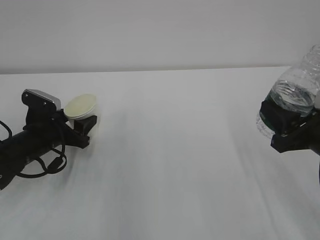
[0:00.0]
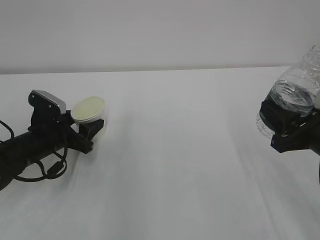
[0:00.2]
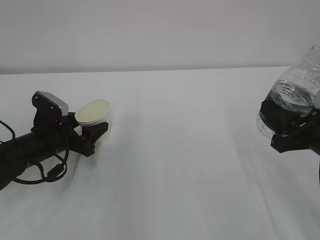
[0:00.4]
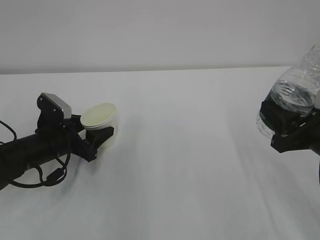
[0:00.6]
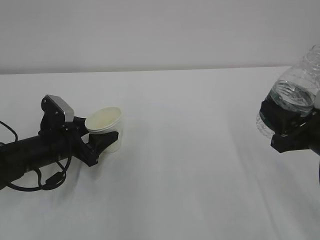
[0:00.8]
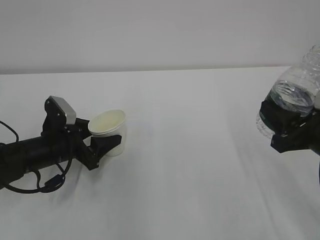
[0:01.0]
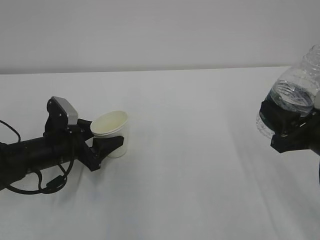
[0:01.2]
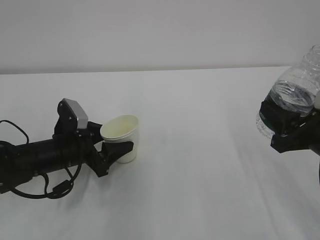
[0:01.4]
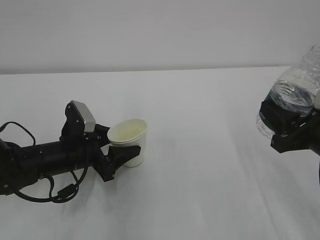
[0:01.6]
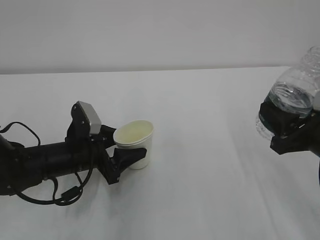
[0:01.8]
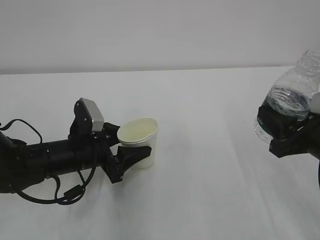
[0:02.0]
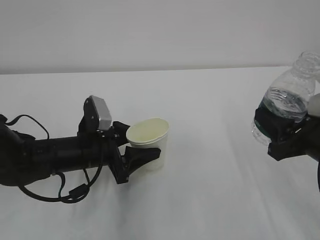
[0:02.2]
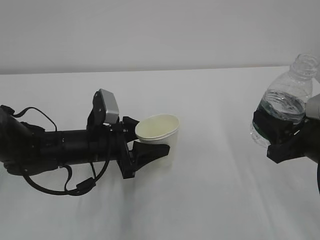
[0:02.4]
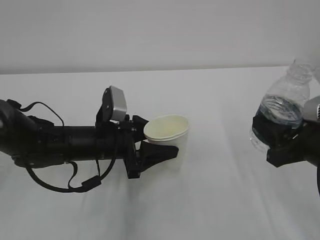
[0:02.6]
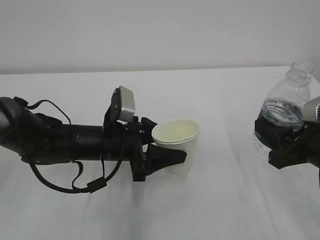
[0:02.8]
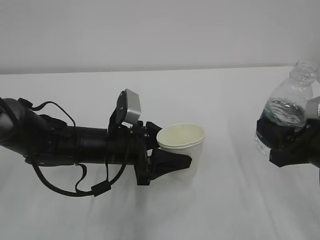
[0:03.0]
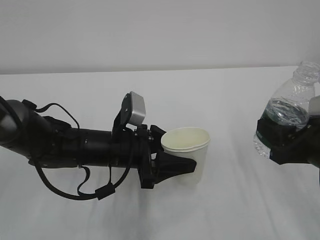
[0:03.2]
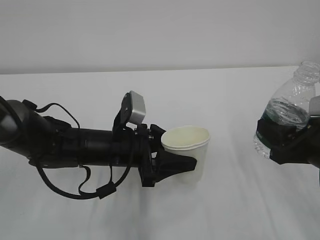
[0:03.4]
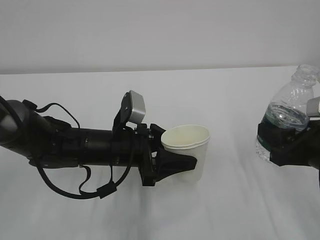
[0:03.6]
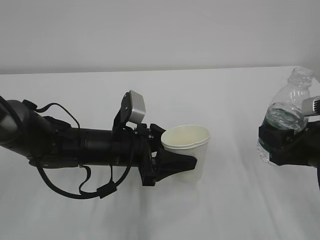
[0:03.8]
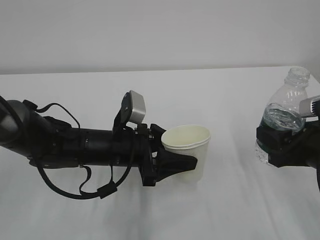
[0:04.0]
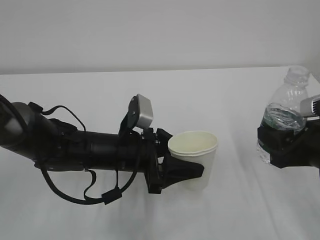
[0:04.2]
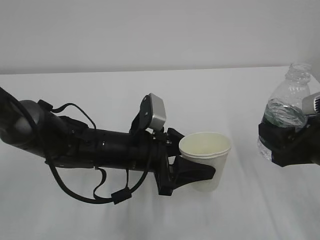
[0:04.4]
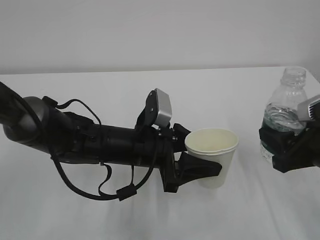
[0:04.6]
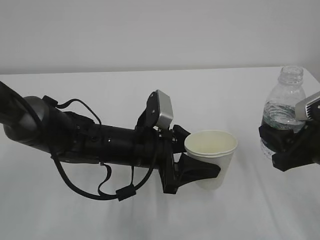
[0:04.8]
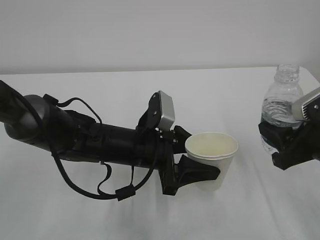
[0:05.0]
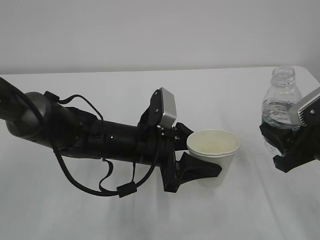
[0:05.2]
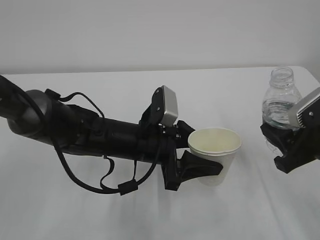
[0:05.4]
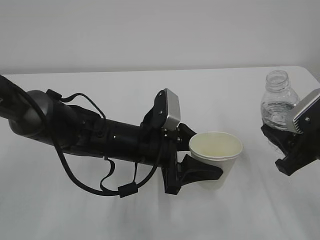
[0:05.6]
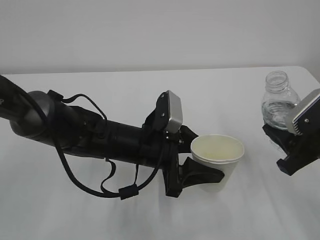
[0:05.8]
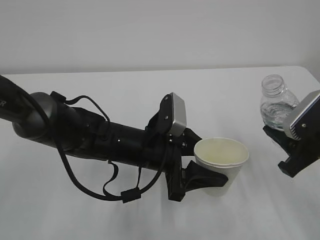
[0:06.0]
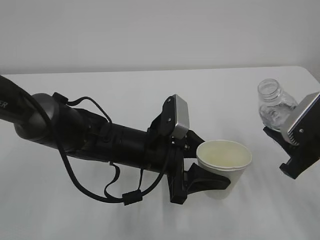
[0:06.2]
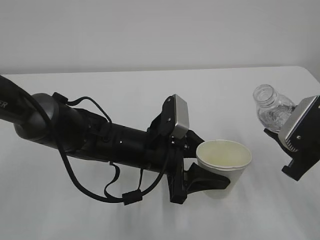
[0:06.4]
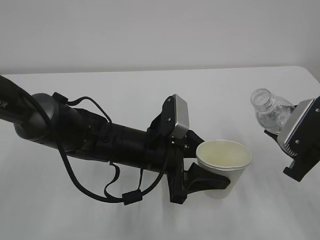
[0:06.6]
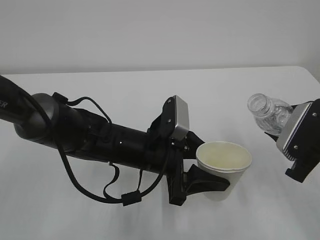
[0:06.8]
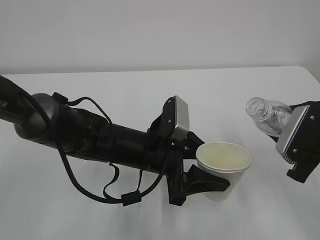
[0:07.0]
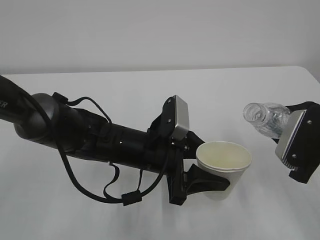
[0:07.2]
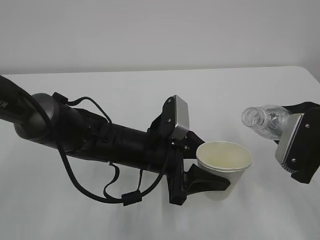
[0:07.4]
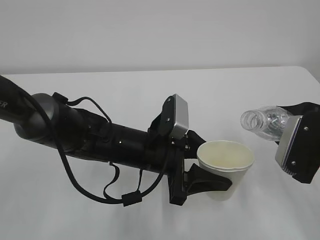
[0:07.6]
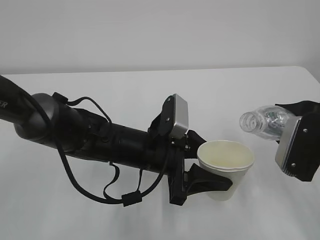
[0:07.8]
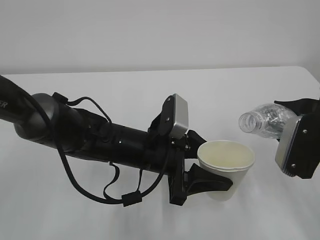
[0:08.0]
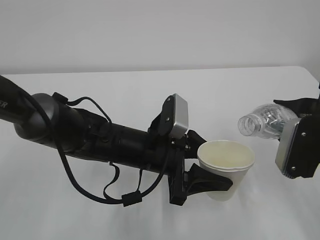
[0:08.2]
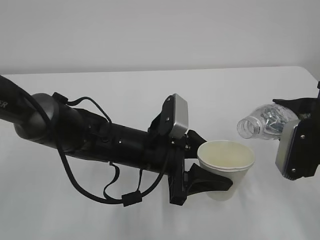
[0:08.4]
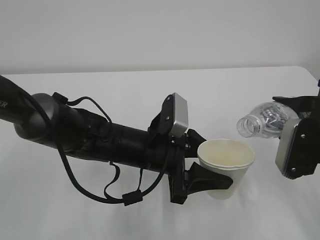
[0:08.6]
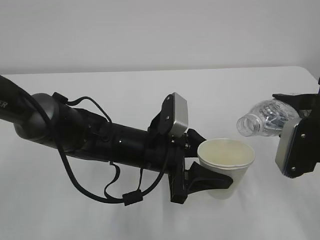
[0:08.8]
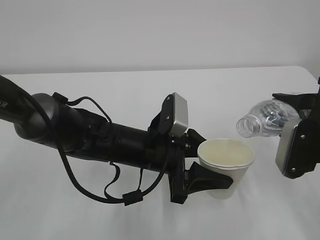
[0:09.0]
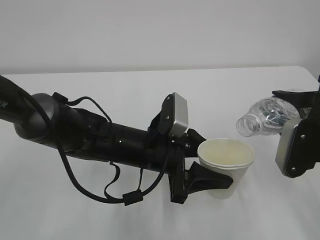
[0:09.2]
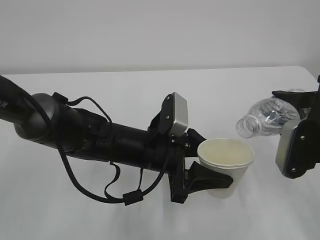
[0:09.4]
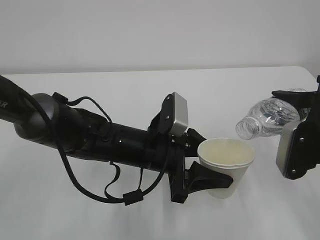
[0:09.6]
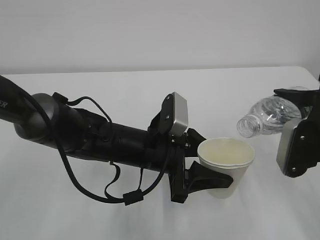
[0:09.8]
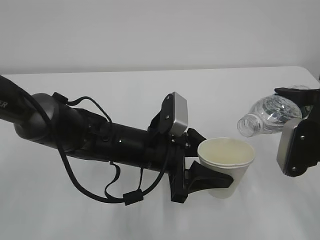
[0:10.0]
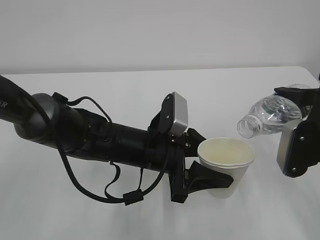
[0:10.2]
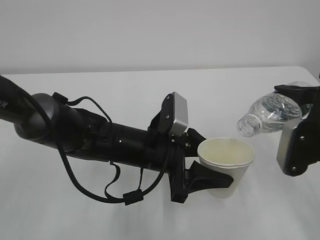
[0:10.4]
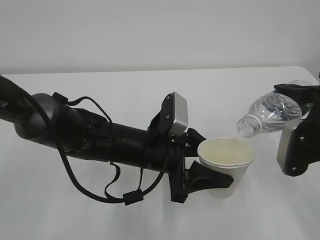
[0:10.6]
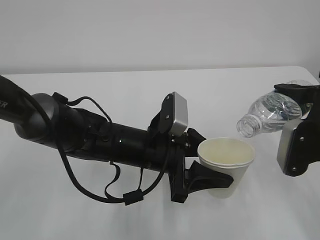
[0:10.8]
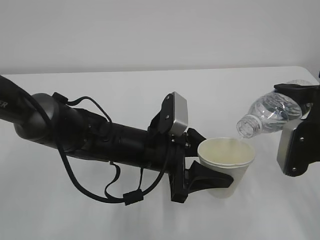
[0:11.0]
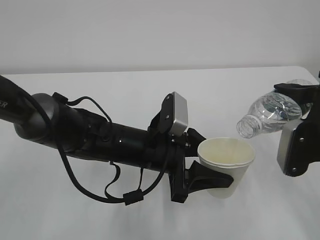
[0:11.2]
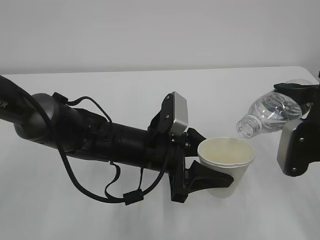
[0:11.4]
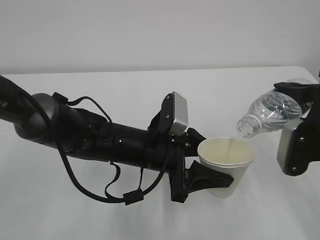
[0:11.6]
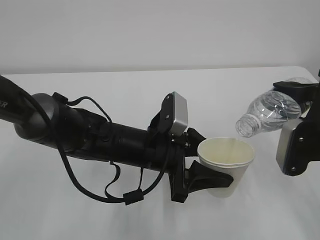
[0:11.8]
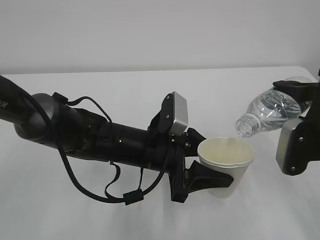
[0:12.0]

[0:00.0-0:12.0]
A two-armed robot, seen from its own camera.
0:00.0 to 0:01.6: The left gripper shifts roughly 5 cm to the right.
0:01.6 to 0:03.0: The left gripper goes roughly 10 cm to the right.
0:03.0 to 0:04.4: The grippers move only a little.
0:07.6 to 0:09.0: The grippers stay close to where they were, moving slightly.
0:09.0 to 0:10.4: The grippers move only a little.
0:10.4 to 0:12.0: Both grippers stay put.

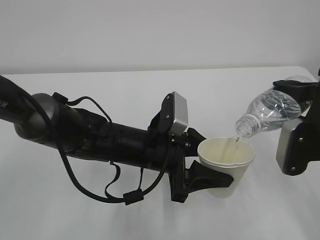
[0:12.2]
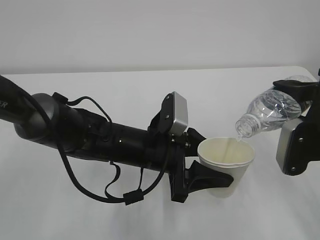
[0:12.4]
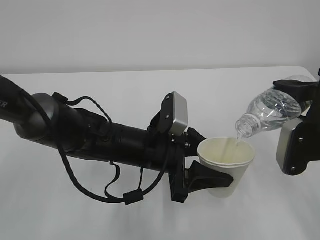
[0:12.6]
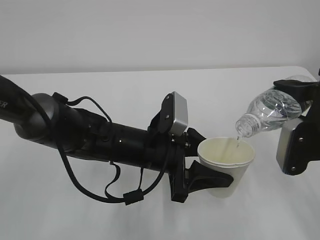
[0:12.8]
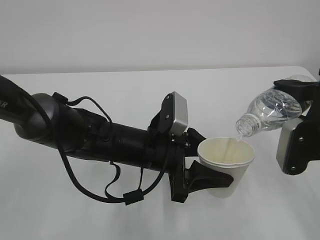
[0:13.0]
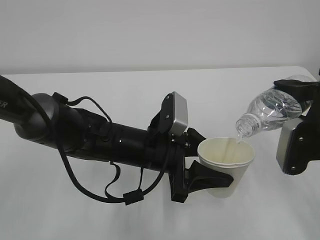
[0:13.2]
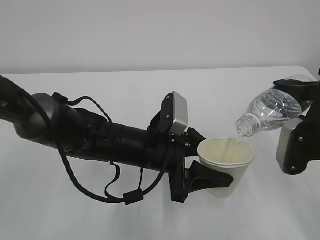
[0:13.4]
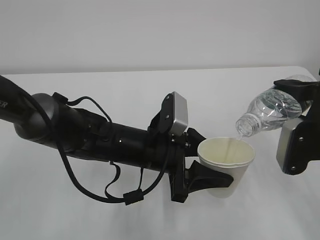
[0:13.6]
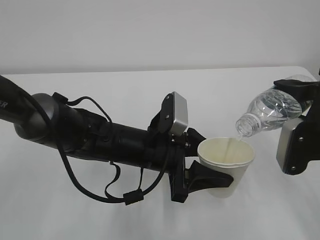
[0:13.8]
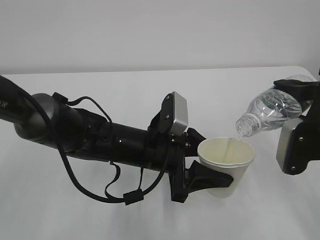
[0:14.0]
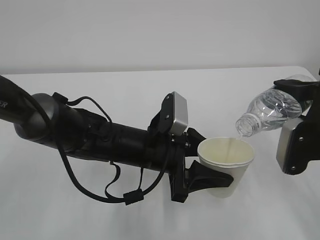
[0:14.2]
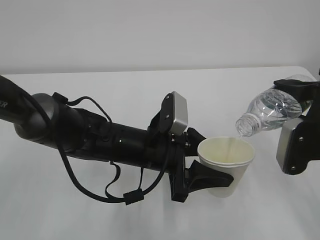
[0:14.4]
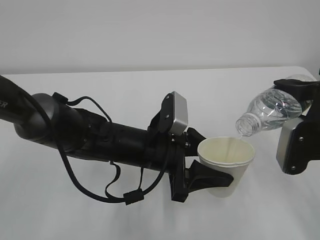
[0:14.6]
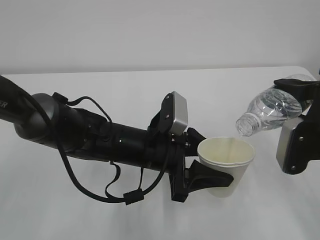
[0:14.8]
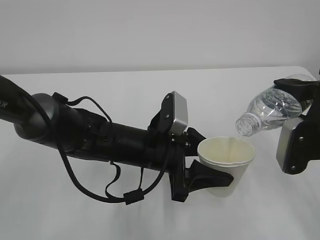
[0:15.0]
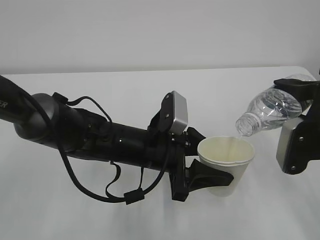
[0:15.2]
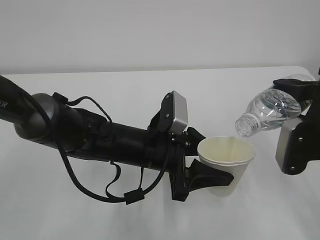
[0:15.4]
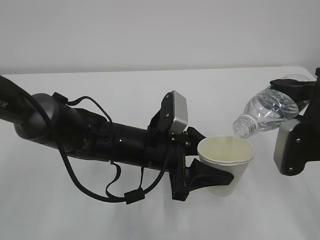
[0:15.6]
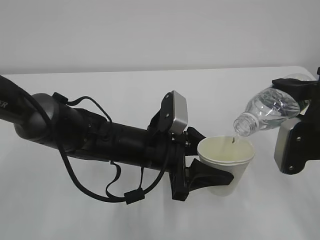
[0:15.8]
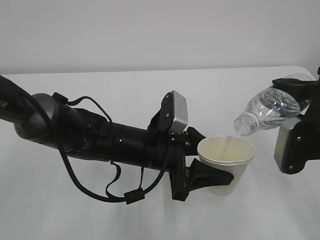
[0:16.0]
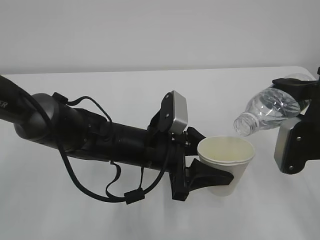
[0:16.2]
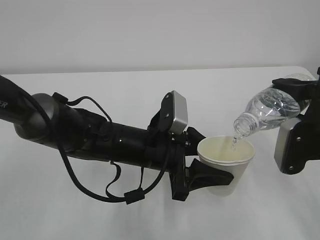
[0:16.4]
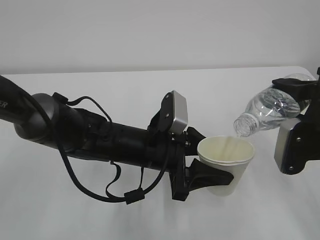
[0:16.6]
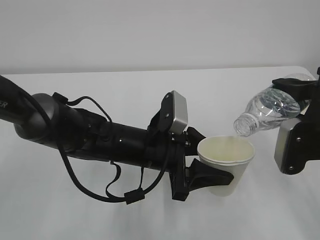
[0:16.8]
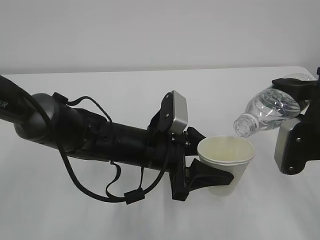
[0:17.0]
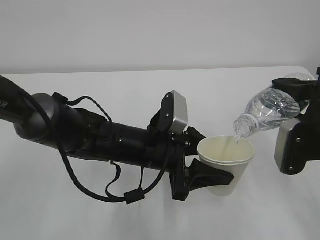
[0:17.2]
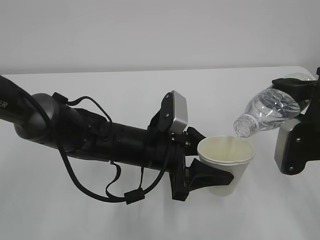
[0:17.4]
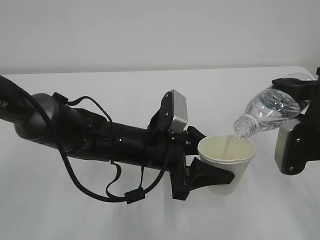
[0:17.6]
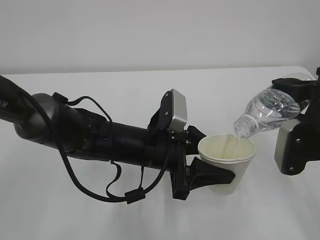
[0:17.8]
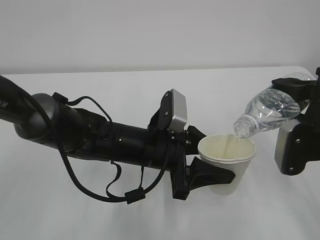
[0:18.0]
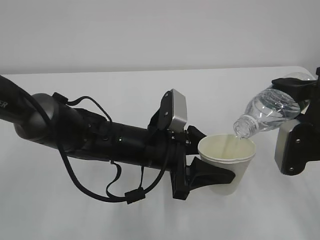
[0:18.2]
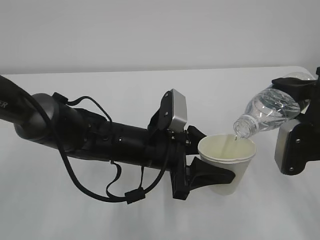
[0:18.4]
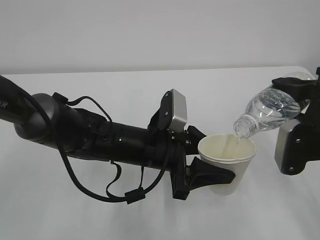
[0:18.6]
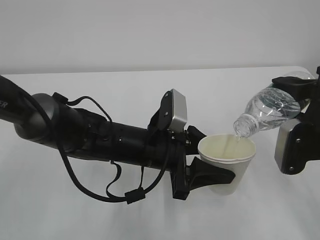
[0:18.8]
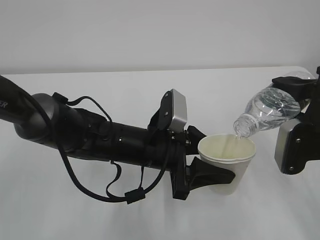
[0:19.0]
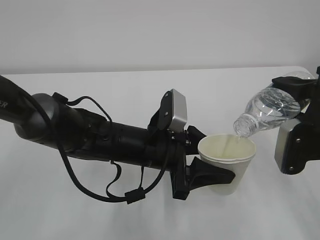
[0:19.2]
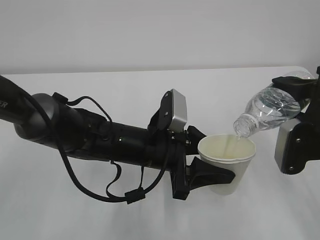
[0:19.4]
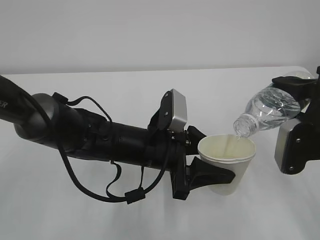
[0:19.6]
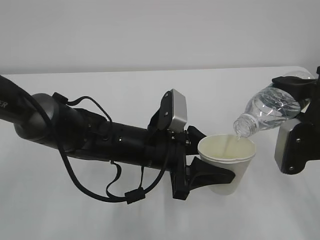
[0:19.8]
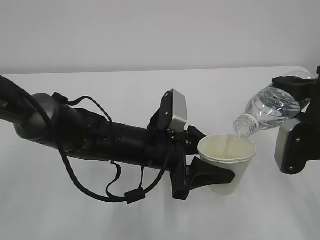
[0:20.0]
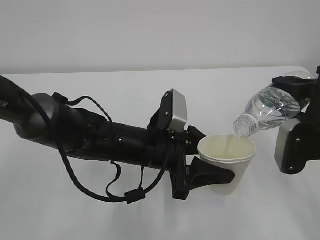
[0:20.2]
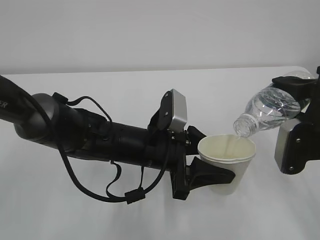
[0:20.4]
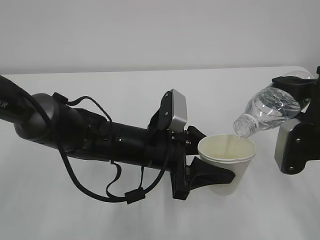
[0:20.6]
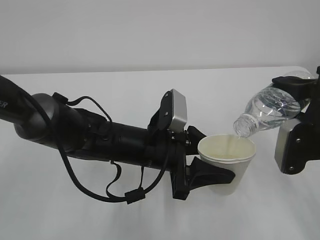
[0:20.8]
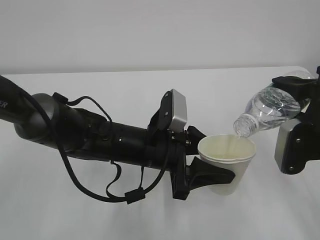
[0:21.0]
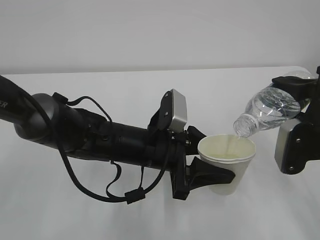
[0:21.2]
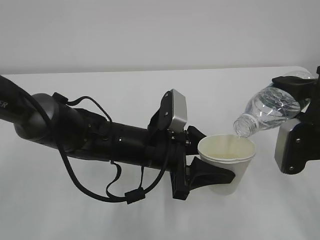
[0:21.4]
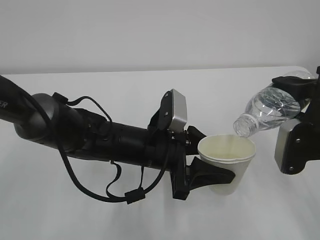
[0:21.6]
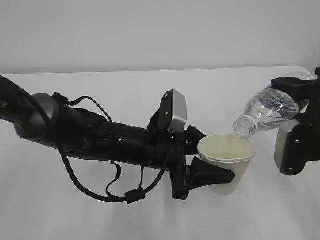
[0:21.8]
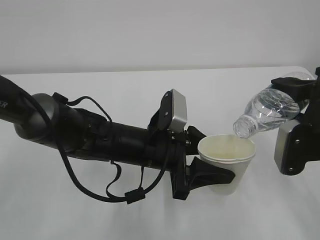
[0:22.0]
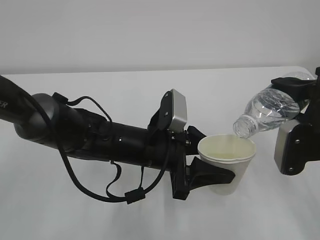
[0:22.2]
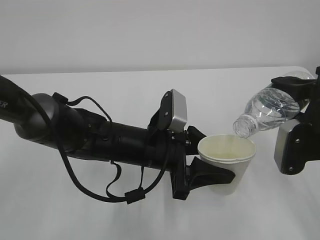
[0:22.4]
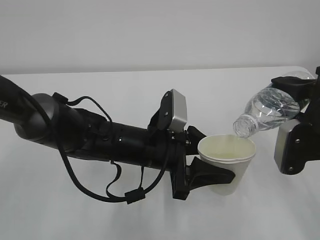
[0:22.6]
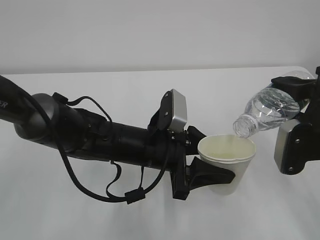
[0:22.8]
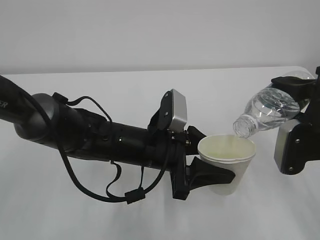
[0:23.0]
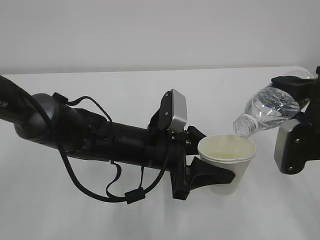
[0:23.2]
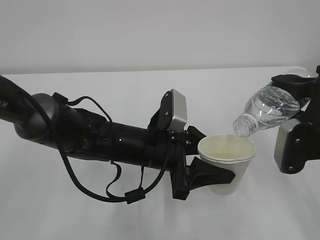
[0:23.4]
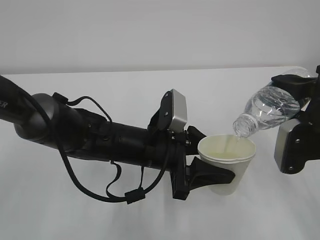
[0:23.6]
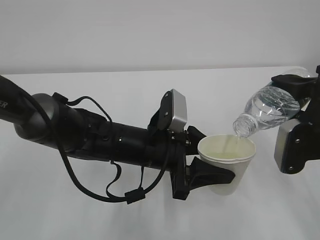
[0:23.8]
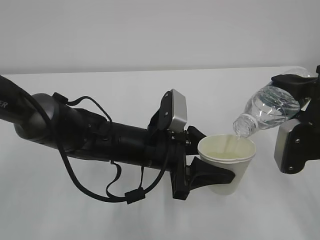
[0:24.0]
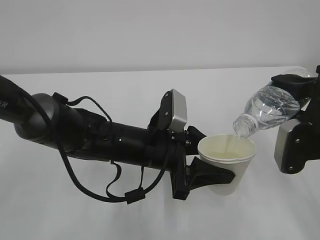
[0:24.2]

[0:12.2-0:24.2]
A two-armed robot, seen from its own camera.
0:12.2 to 0:24.2: Both grippers stay about where they are.
